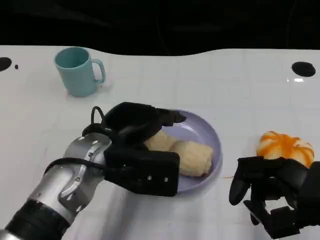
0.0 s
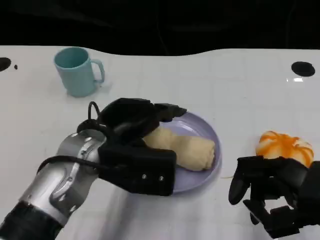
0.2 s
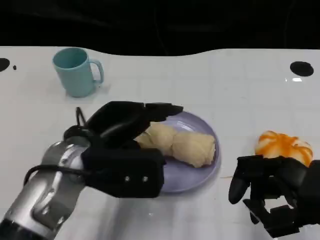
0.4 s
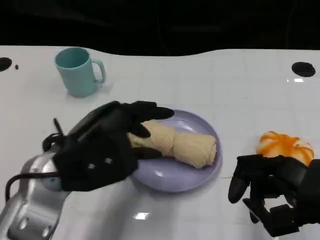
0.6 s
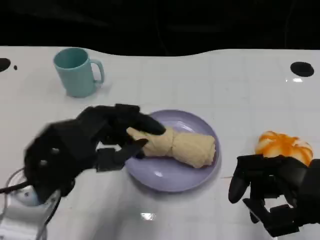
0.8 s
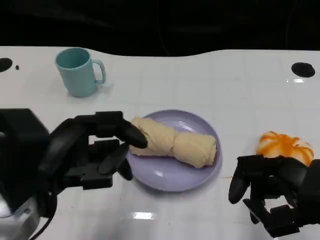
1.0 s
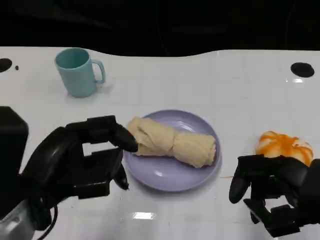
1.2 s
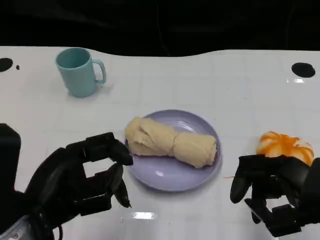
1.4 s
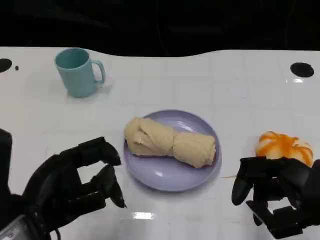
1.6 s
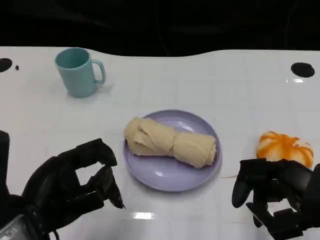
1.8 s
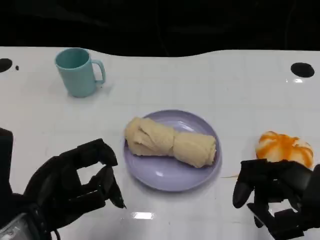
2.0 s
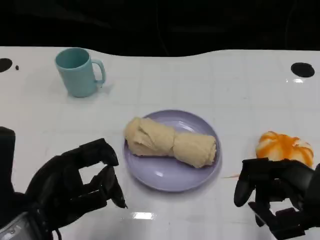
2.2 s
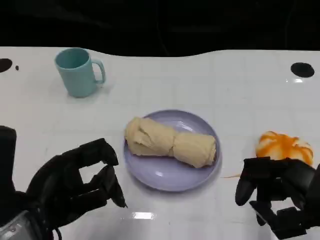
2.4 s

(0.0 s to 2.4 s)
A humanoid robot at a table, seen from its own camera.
Task of the whole recording: Grasp the towel on the left side of the plate with the left hand and place it into the plate.
0.0 s - 1.2 s: The left hand heads backward and to the left, covering some 15 cm.
1.2 s - 2.4 s: There are only small adjustments of the hands.

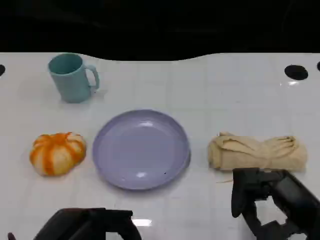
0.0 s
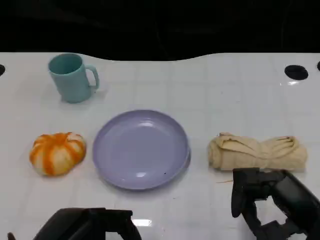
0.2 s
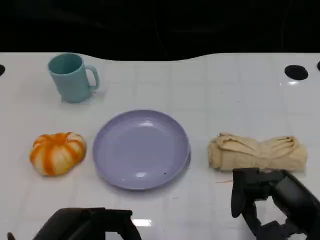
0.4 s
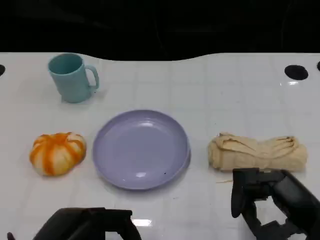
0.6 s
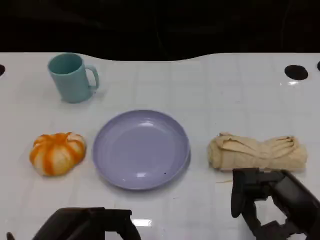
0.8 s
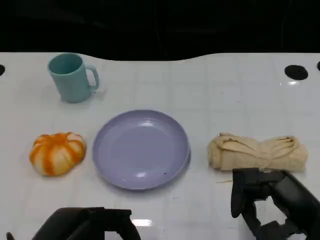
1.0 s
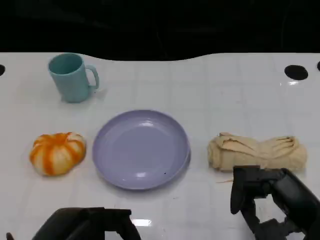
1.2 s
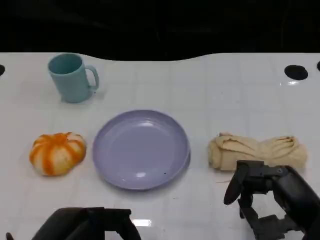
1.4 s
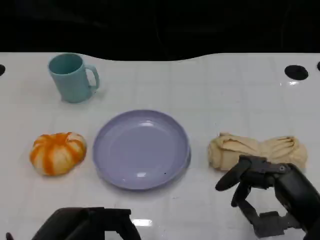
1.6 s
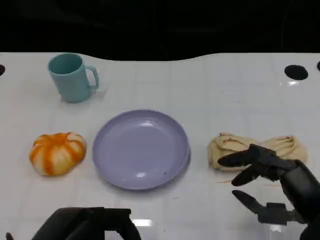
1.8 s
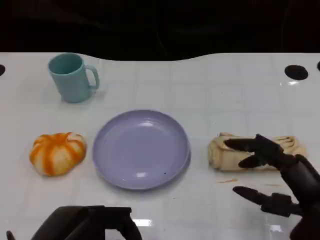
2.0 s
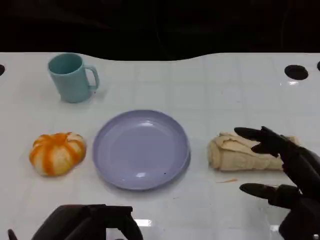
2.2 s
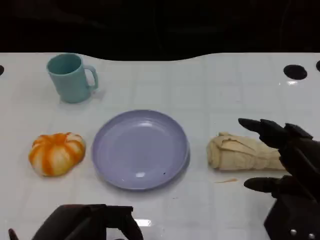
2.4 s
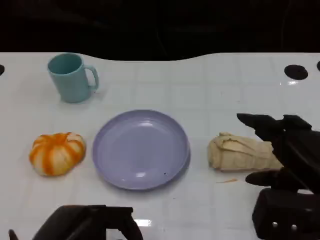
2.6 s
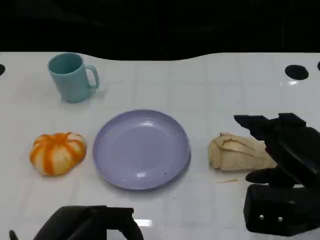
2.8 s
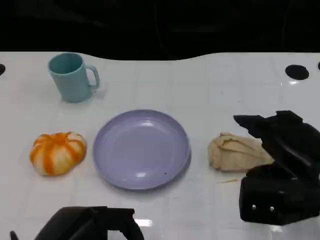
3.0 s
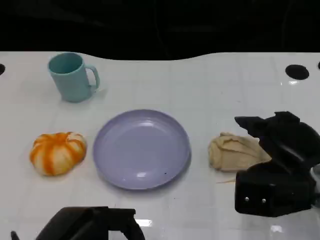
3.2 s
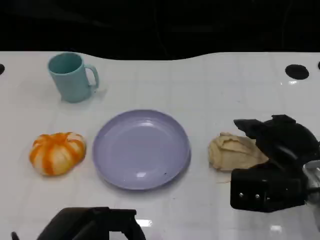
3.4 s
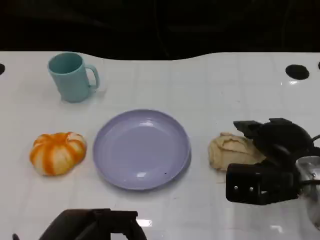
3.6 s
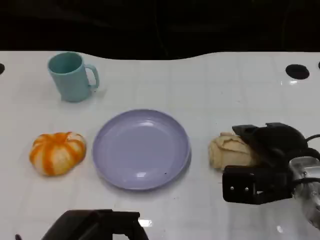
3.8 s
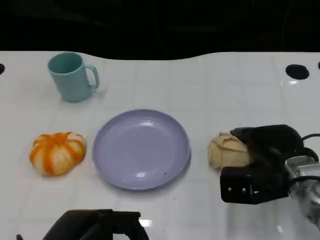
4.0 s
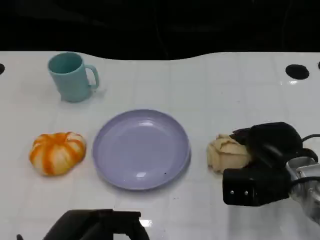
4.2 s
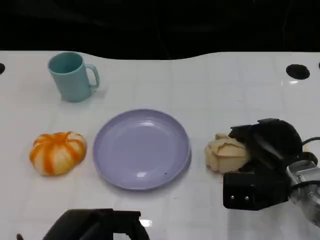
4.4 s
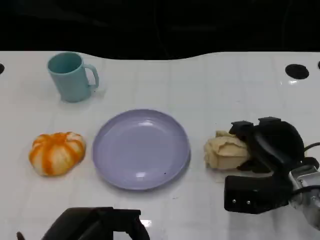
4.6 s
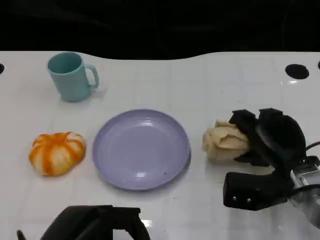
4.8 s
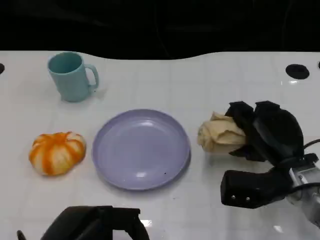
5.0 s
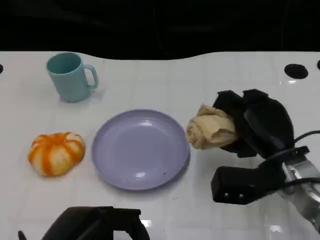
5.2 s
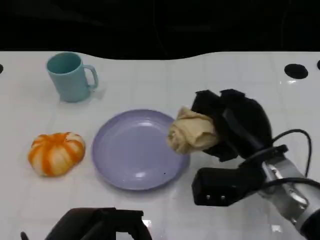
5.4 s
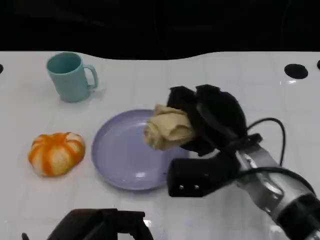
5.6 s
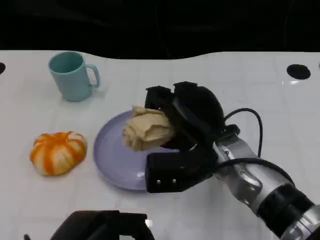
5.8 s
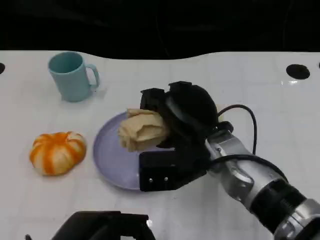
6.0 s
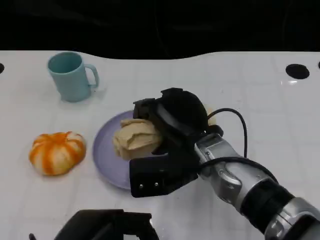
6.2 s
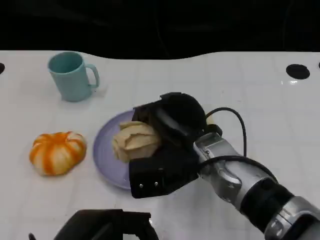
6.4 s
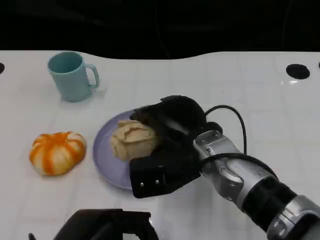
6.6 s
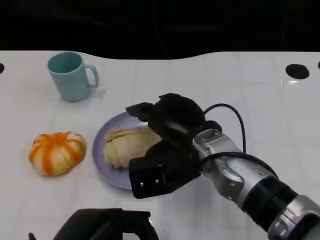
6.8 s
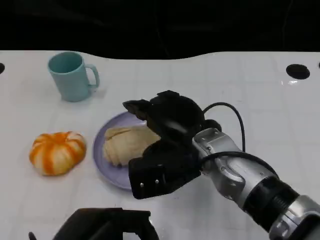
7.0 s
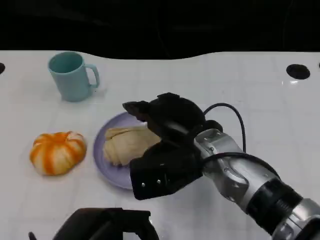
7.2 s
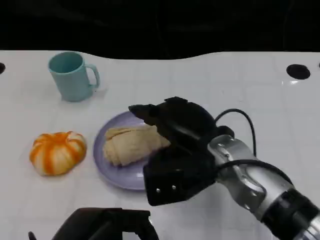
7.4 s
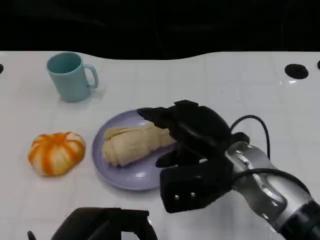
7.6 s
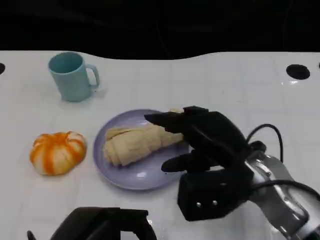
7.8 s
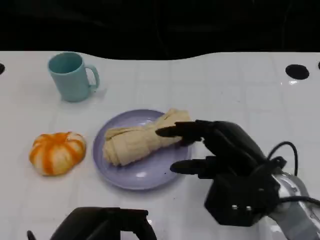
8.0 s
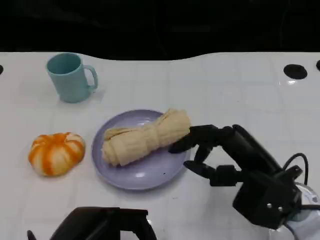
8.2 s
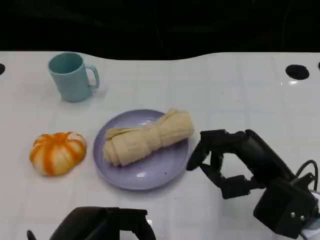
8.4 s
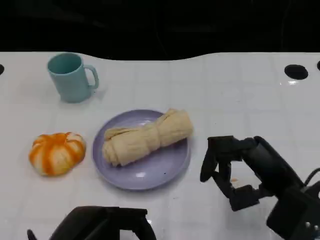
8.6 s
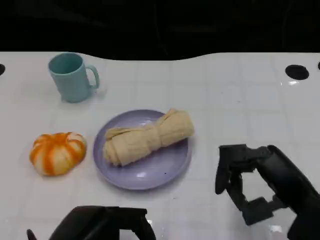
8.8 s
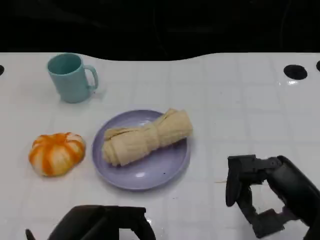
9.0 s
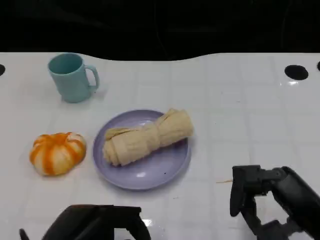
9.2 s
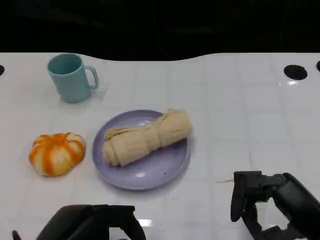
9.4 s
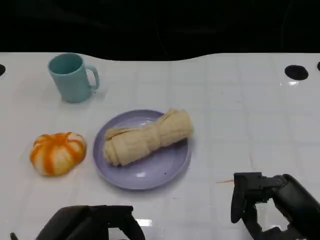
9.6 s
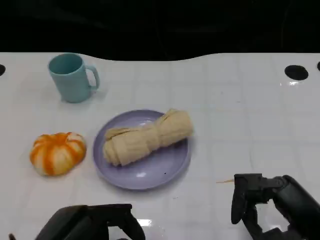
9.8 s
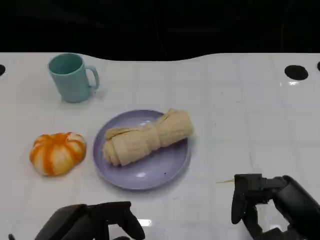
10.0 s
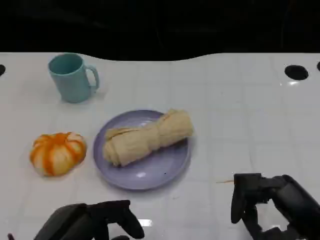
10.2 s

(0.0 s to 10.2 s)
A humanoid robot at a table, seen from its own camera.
Task of the whole recording: Grasp the towel on the left side of the plate with the left hand and place it into the plate.
0.0 s - 1.4 s: There are only small adjustments of the hands.
1.4 s - 3.0 s: The right hand moves forward, approximately 5 cm.
3.0 s - 4.4 s: The right hand moves downward, roughly 5 cm.
4.4 s - 5.8 s: The right hand goes some 15 cm to the left and upward.
5.8 s - 7.2 s: The hands make only small movements.
7.2 s - 8.8 s: The right hand shifts about 20 cm to the right and backward.
8.8 s - 10.2 s: There are only small adjustments of the hands.

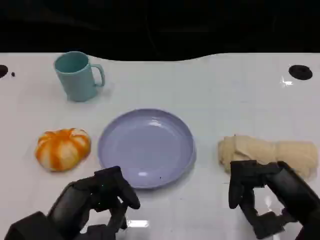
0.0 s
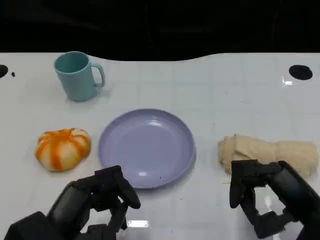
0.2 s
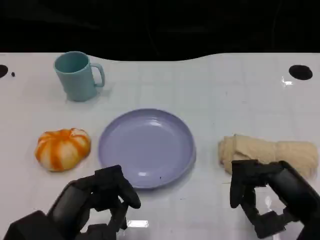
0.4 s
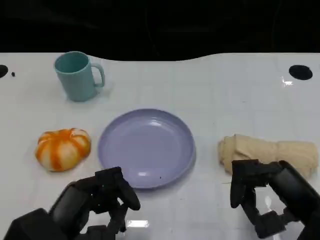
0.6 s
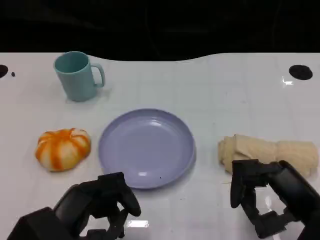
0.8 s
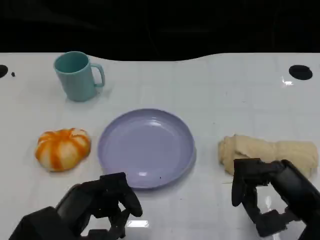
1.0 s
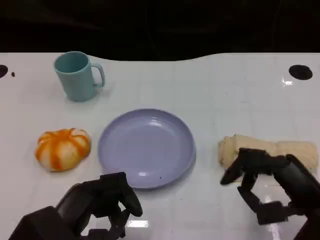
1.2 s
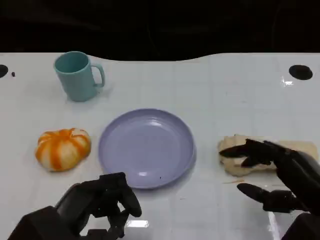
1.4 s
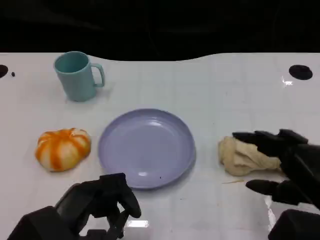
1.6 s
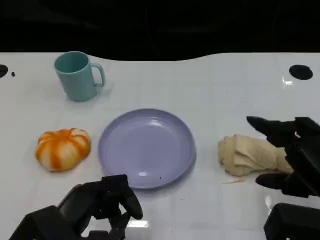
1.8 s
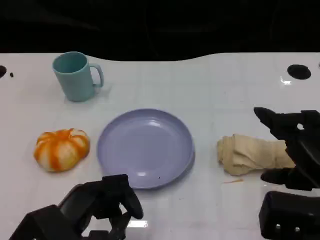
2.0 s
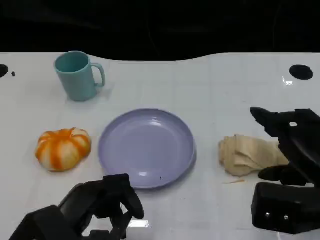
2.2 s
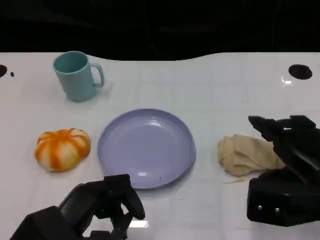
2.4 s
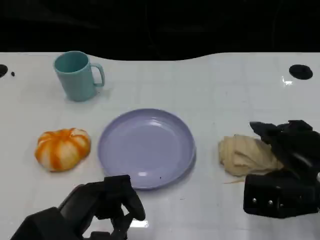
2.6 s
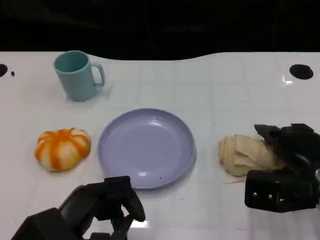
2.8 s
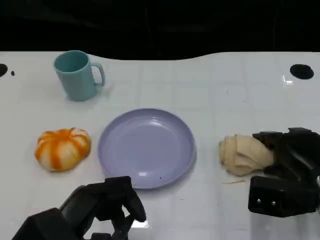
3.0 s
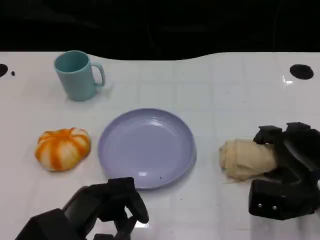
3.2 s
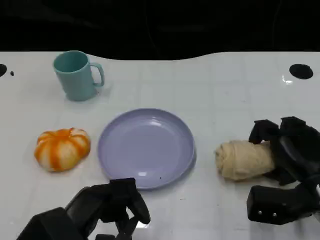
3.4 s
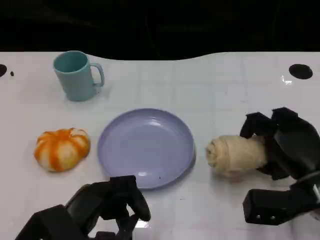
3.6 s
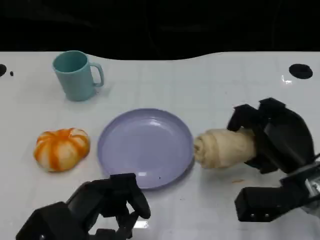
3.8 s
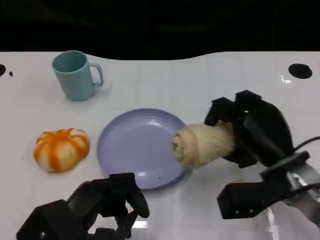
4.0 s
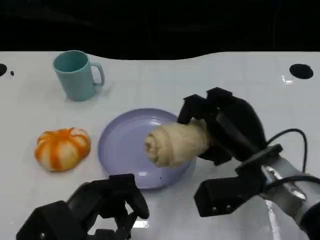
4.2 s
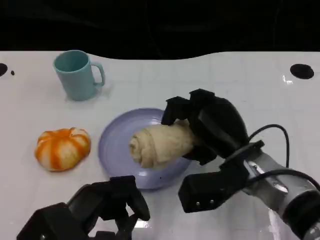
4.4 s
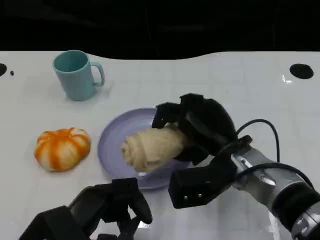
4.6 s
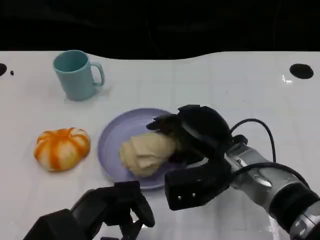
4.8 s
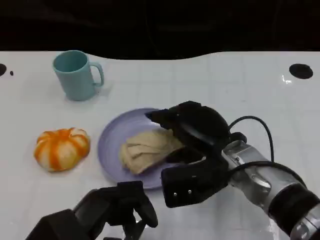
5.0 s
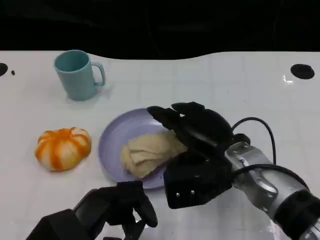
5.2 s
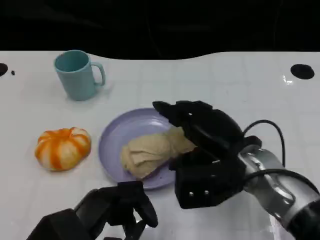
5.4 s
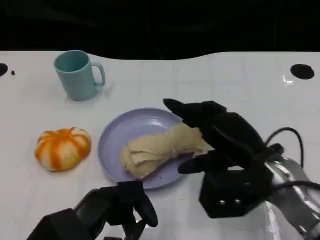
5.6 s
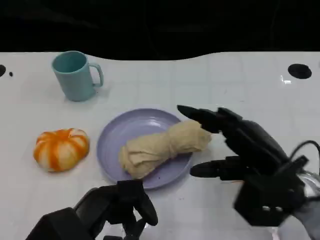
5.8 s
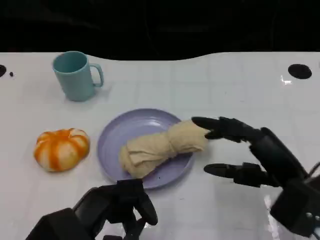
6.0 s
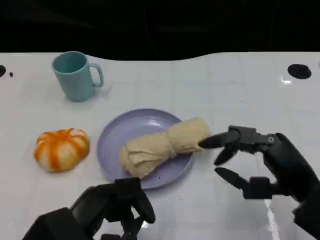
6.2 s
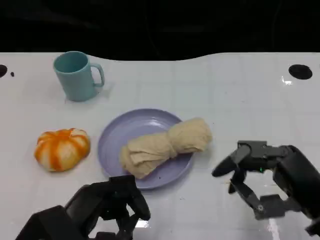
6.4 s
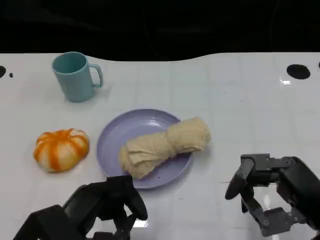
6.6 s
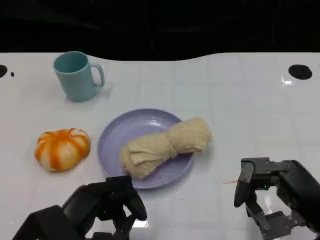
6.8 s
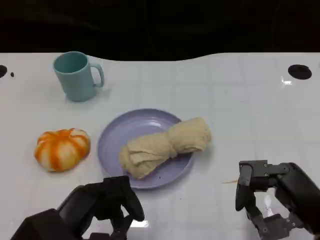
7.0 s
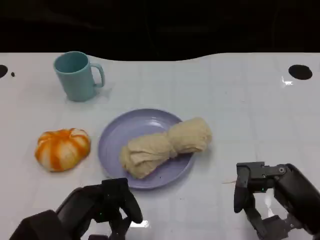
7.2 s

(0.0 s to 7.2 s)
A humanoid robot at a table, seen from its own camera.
Task of the whole recording: Grasp the towel on the left side of the plate with the left hand and place it into the plate.
1.4 s - 2.8 s: The right hand shifts approximately 10 cm forward.
2.8 s - 4.4 s: The right hand travels to the left by approximately 10 cm.
4.4 s - 5.8 s: The right hand goes some 5 cm to the right.
5.8 s - 7.2 s: The right hand travels backward by roughly 5 cm.

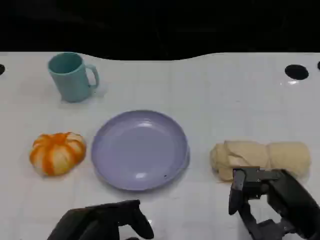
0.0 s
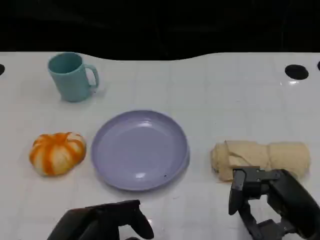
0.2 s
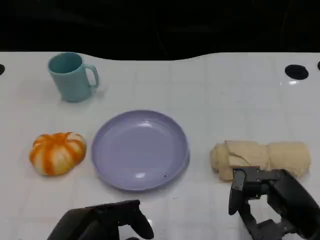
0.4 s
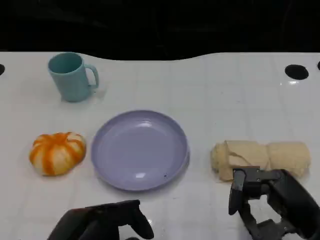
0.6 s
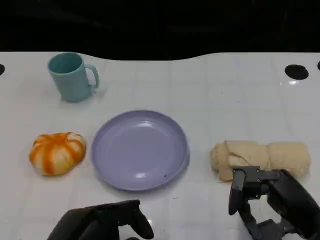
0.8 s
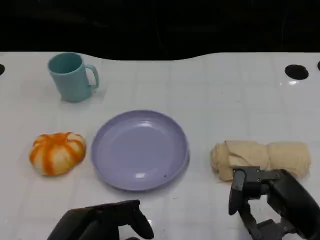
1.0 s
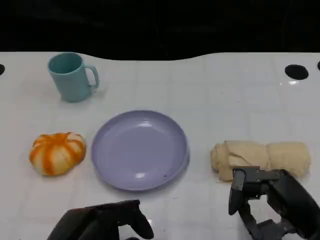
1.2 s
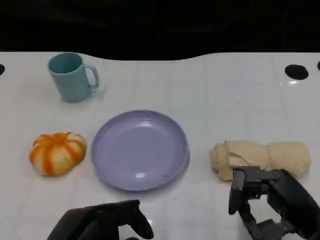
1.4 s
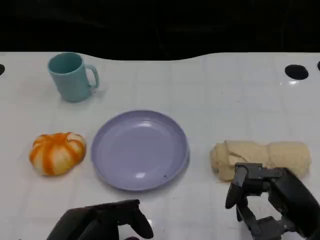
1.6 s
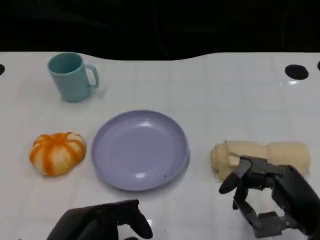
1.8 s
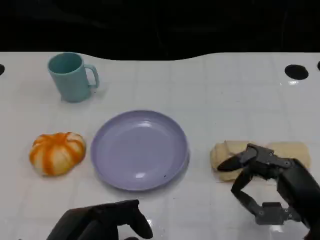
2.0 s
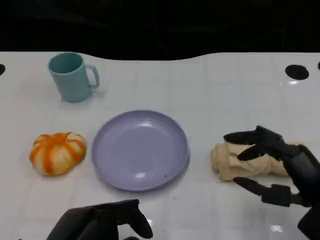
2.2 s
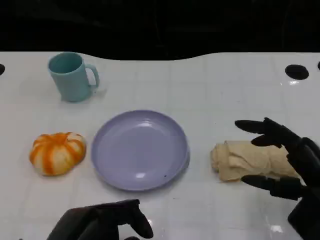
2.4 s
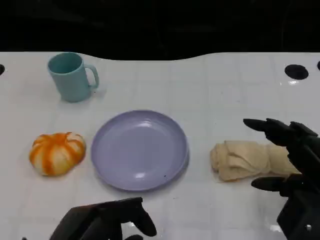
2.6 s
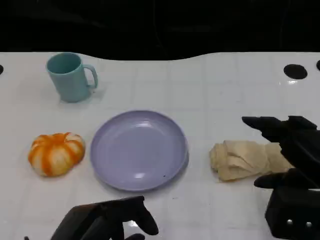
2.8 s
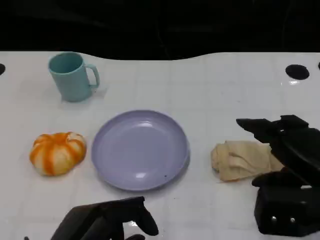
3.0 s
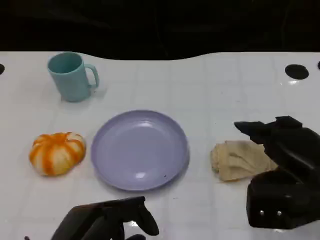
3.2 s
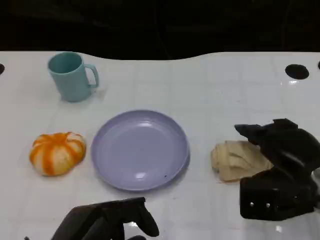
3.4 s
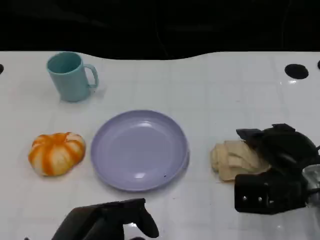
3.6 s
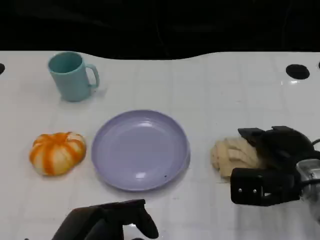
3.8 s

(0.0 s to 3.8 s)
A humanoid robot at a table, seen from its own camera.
Task of the whole recording: Grasp the towel on the left side of the plate with the left hand and place it into the plate.
0.0 s - 1.2 s: The two hands keep their place.
1.2 s - 2.6 s: The right hand ends up roughly 5 cm from where it was.
2.6 s - 3.8 s: The right hand shifts about 10 cm forward and downward.
